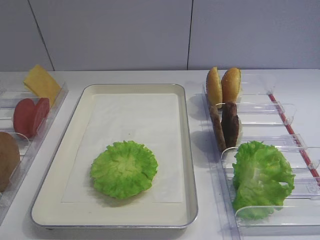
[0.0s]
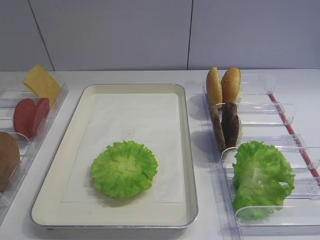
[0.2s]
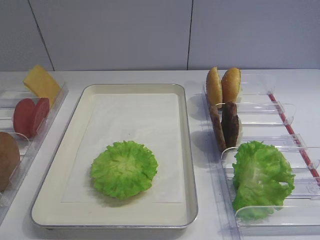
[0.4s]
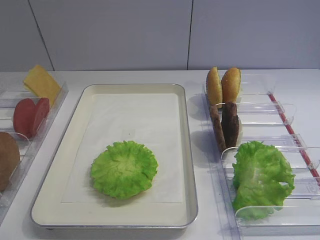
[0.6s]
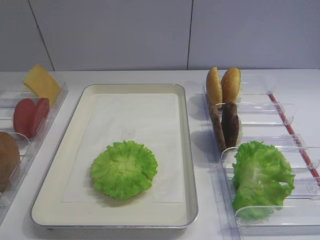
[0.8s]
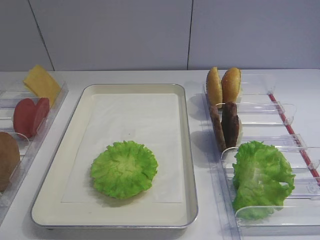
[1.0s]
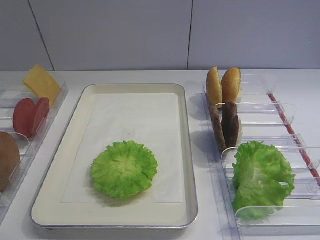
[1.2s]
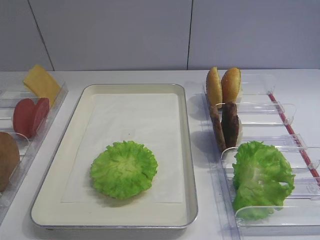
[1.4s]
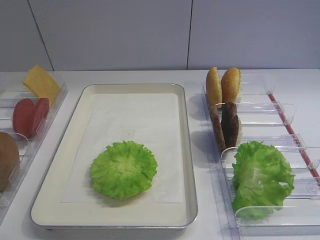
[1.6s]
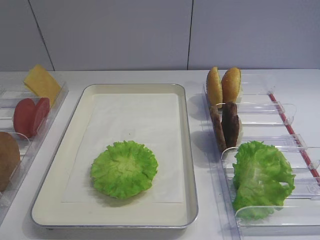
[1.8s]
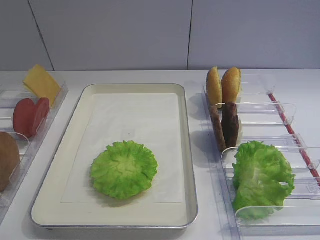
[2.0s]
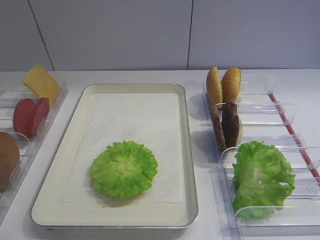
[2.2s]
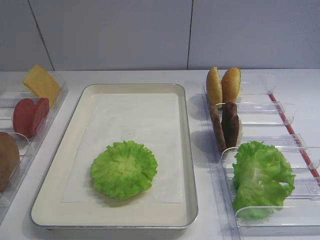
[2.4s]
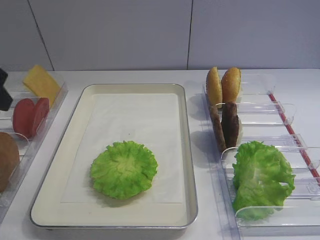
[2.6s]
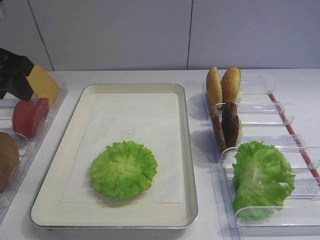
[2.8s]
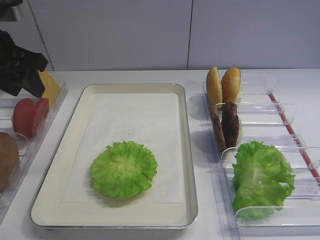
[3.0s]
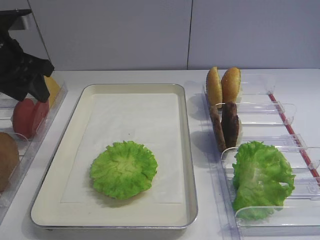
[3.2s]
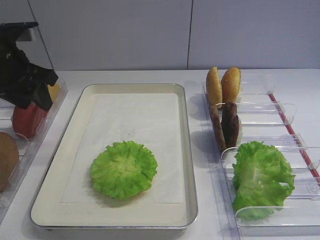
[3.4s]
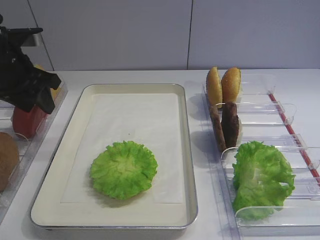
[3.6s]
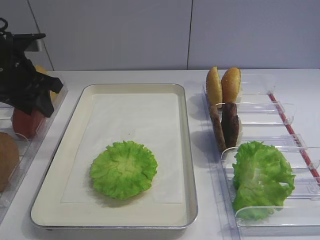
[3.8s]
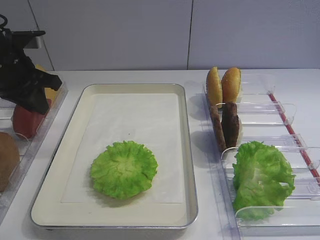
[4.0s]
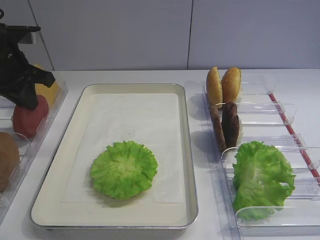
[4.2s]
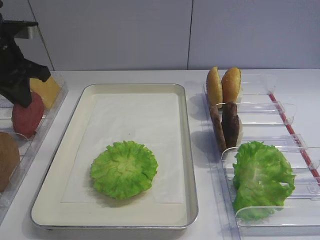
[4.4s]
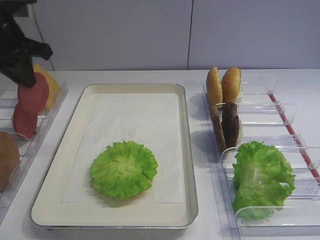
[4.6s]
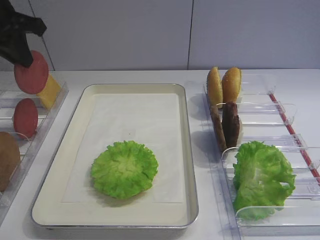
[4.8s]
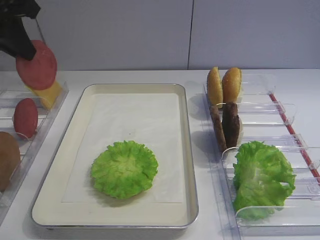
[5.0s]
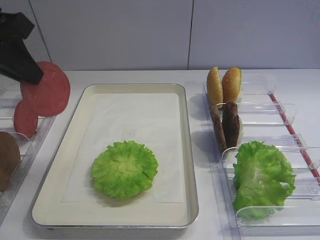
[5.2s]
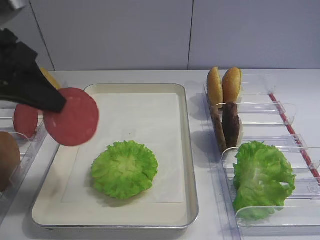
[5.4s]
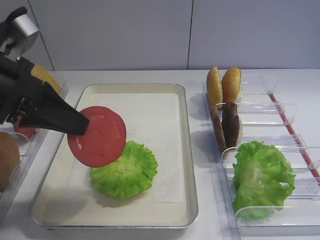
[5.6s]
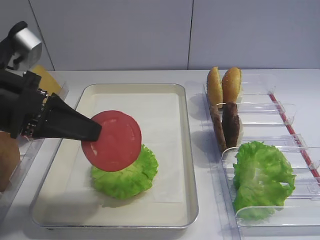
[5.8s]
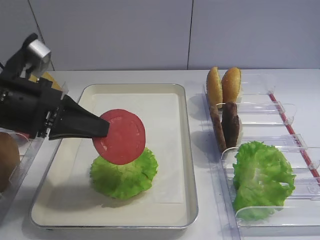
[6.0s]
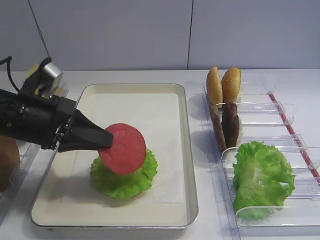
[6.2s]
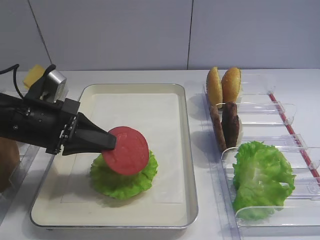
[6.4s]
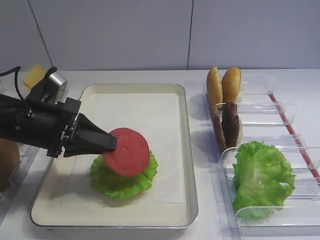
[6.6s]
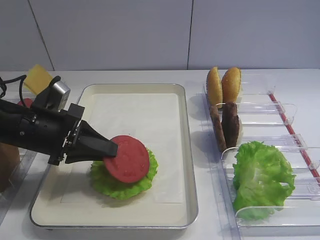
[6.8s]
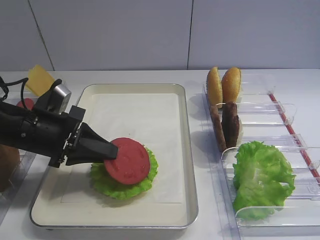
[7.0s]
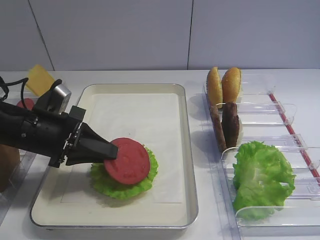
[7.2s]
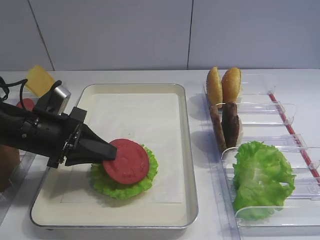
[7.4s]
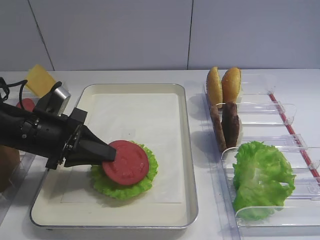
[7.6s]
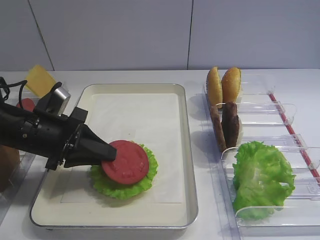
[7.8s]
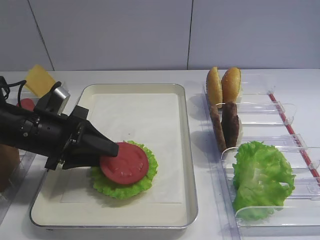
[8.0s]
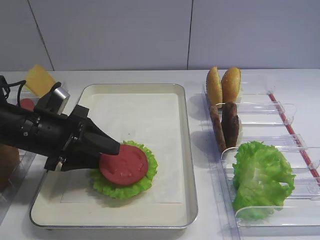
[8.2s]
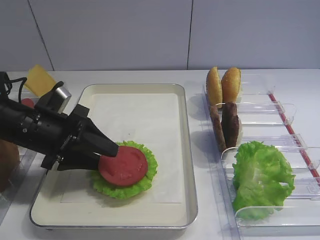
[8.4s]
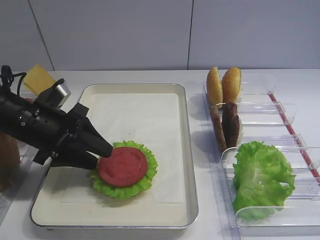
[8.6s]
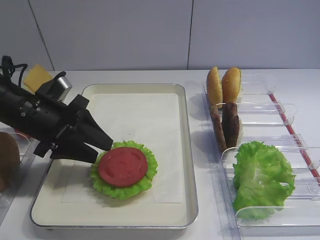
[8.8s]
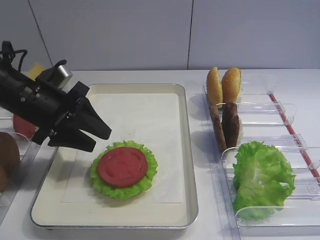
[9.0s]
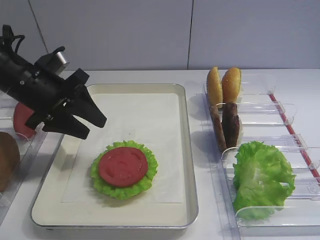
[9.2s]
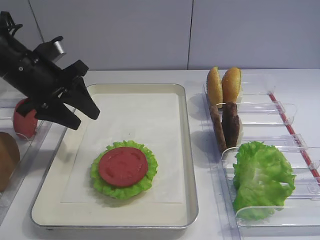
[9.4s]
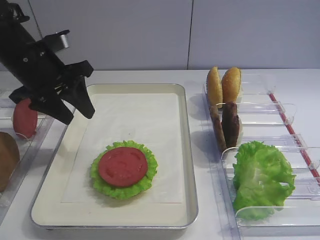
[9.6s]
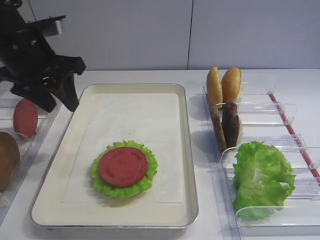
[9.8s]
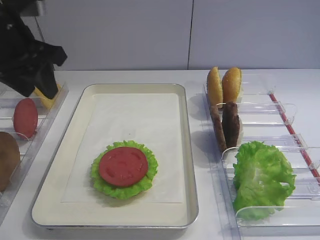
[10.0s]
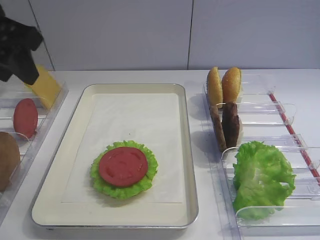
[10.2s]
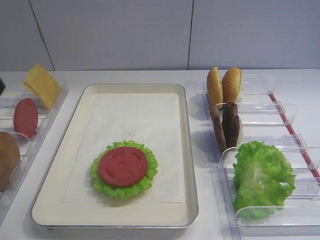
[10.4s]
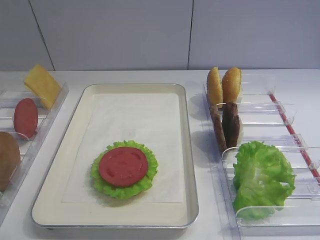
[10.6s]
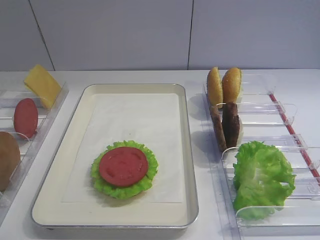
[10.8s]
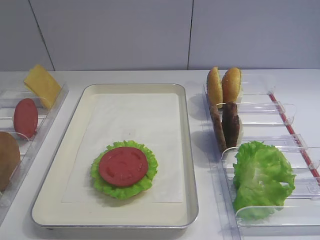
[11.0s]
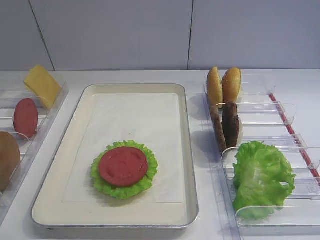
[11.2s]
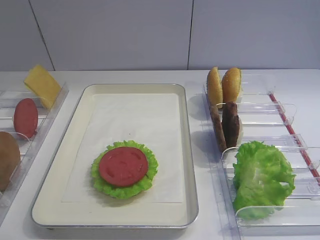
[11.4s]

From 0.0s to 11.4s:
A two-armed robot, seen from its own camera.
Step, from 0.0s to 4.8s: Pick up the tomato slice with the left gripper.
Step, from 5.0s to 8.8s: Place the tomato slice on the lettuce leaf with the left gripper.
From 1.4s to 2.8s: The left gripper travels forward by approximately 30 cm.
From 2.8s to 4.2s: The left gripper moves forward, about 5 cm, and closes its fingers.
From 4.2s to 5.6s: The left gripper shifts some 15 cm backward and to the right.
From 5.6s to 7.2s: The left gripper is displaced downward by some 10 cm.
From 7.2s to 8.6s: The left gripper opens up.
From 8.6s to 10.0s: The left gripper travels upward by about 15 cm.
From 10.0s to 11.4s: The left gripper is displaced backward by about 30 cm.

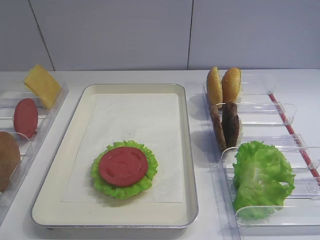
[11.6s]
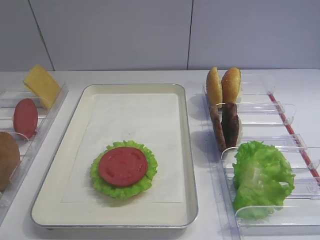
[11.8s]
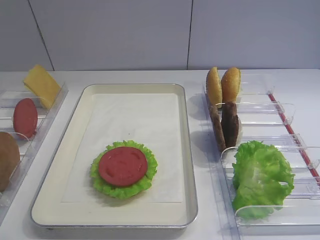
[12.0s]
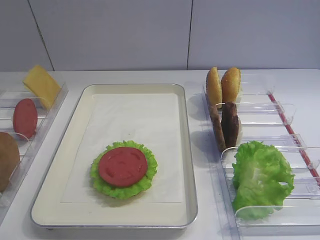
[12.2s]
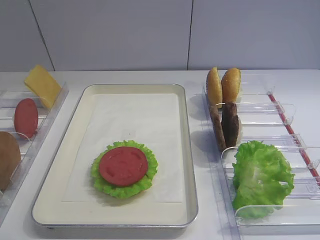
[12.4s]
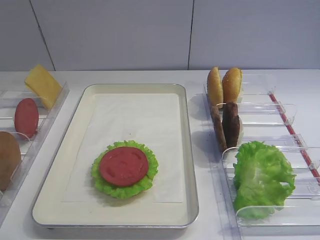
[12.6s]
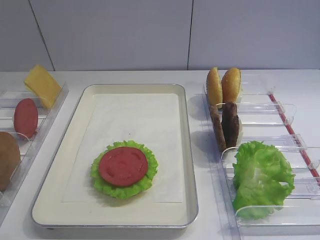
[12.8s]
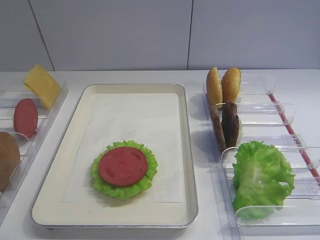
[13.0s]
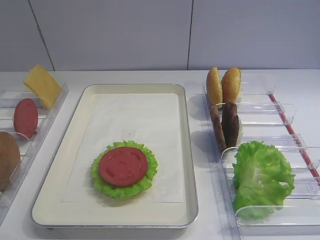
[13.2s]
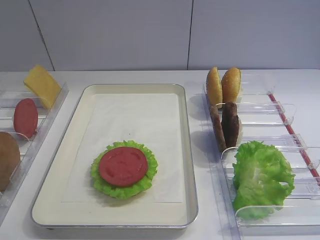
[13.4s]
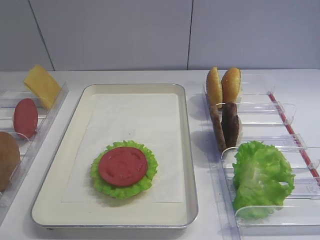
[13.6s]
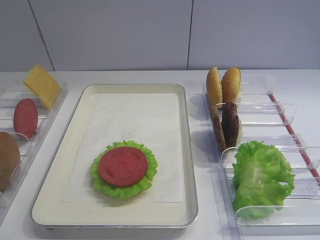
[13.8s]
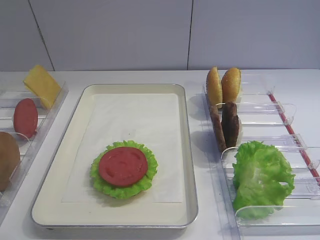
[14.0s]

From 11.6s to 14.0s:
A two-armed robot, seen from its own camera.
From 12.8s to 14.0s: The two grippers keep their place.

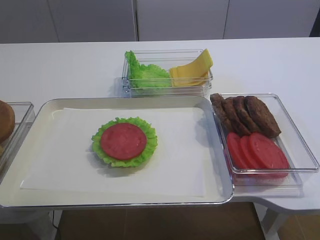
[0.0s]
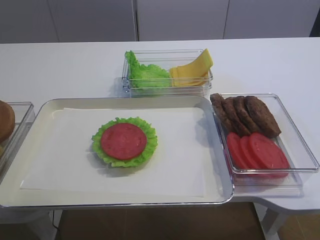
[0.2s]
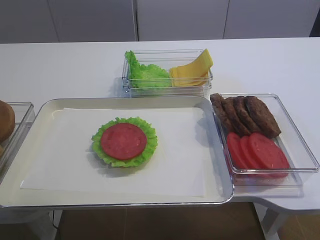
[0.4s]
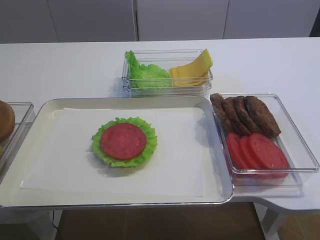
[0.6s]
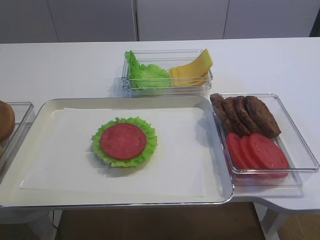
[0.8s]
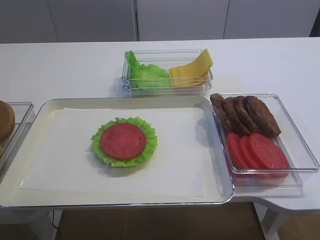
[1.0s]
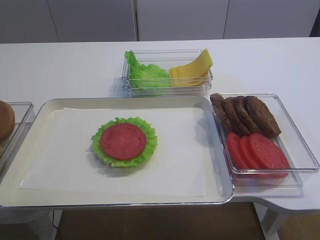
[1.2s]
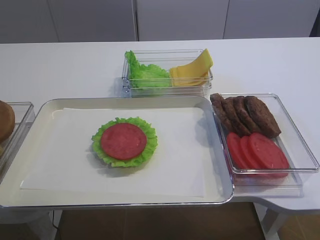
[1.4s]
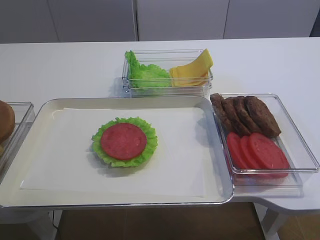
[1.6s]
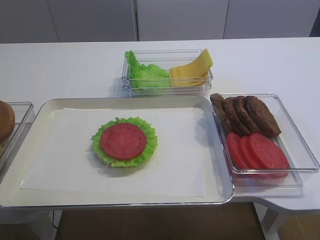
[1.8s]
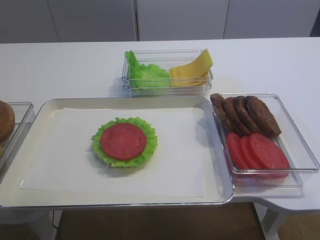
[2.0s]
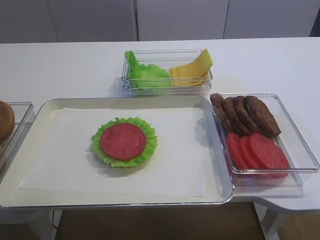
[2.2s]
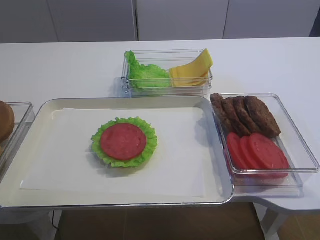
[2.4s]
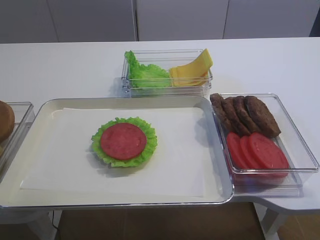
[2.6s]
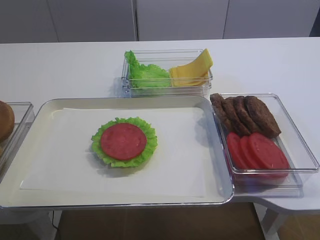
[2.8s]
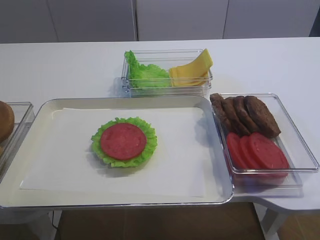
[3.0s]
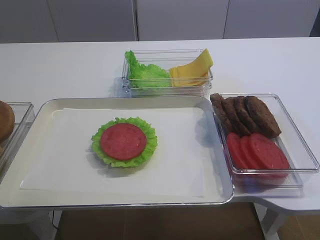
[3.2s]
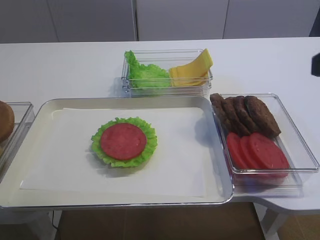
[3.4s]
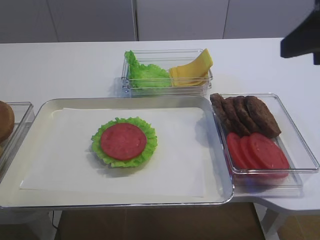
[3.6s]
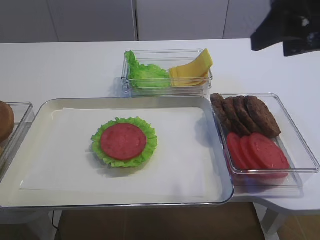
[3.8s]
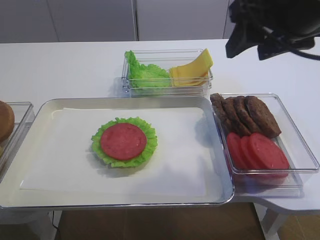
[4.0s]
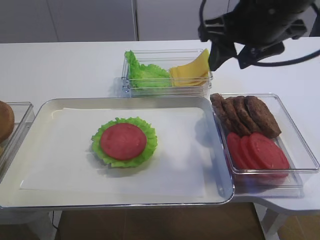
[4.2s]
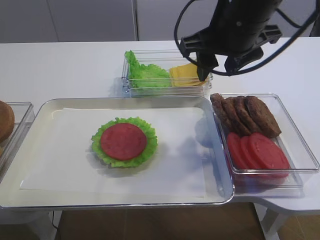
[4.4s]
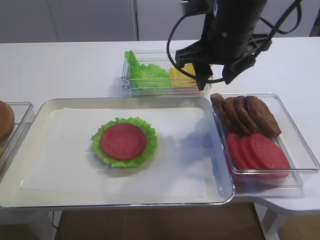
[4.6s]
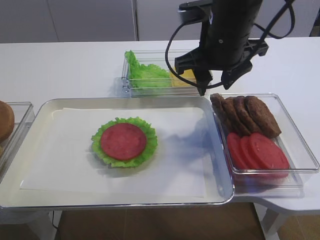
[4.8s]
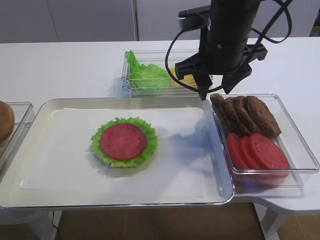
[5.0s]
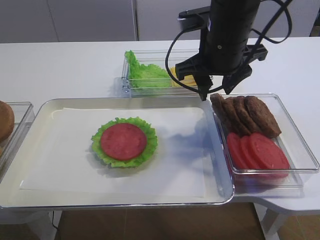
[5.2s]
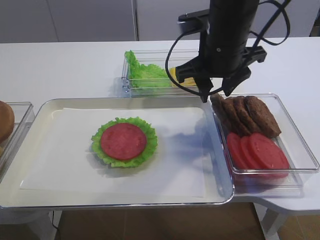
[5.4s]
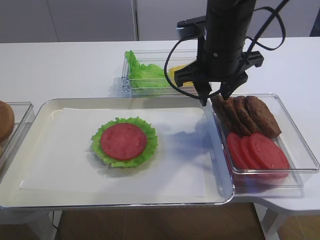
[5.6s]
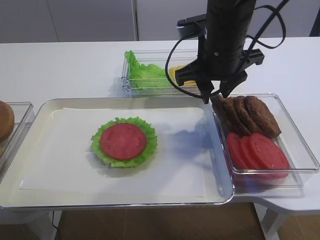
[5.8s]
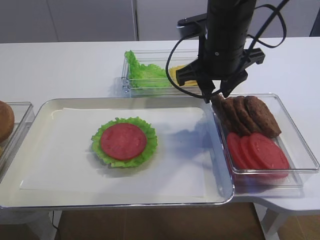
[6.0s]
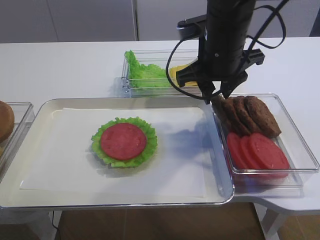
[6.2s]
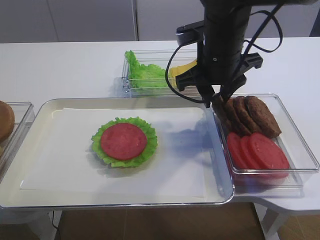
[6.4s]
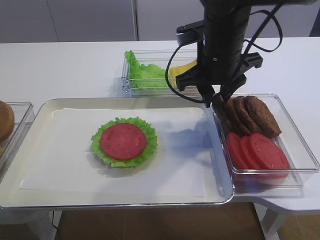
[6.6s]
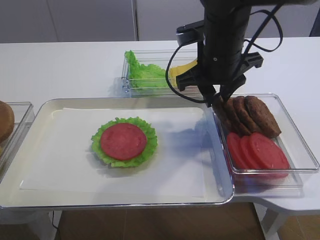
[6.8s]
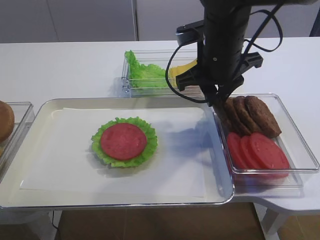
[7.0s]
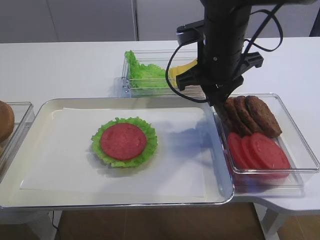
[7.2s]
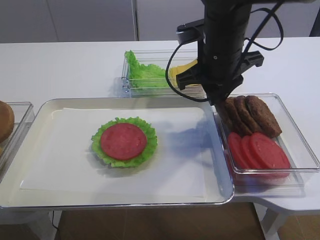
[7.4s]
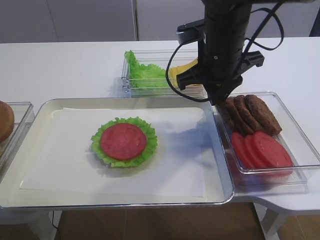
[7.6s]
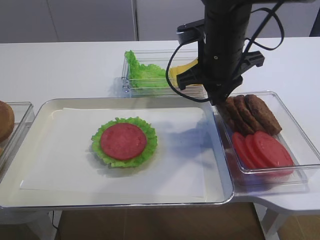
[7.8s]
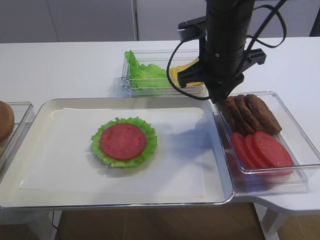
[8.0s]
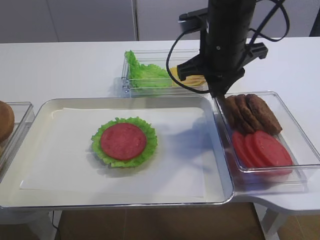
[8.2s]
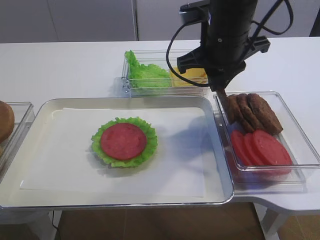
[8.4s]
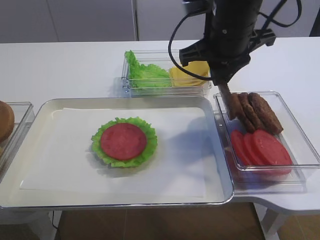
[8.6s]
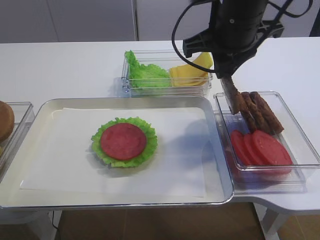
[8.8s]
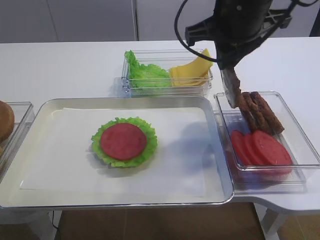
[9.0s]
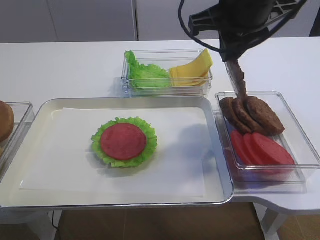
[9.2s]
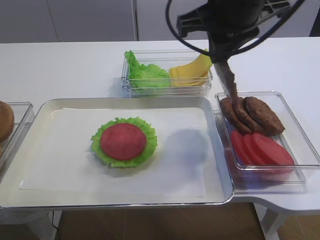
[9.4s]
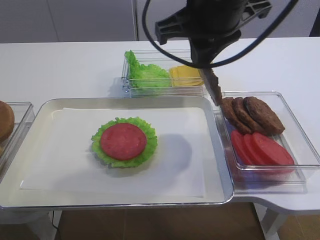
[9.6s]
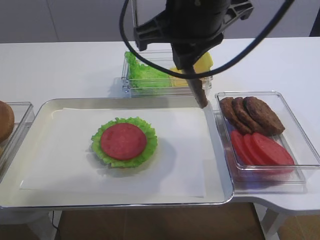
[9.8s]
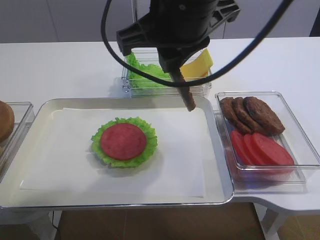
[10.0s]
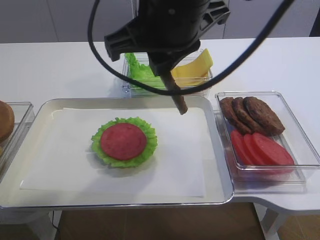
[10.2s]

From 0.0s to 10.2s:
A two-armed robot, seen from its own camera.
Step, from 0.0s to 8.6s: Pick up the cutlet with the right gripper.
From 1.4s to 3.0s: The right gripper heads forward and upward, covering approximately 10 cm.
From 3.0s to 4.4s: The right gripper moves forward and to the left, some 30 cm.
From 4.4s to 5.8s: The right gripper is displaced downward by approximately 5 cm.
From 5.8s to 7.2s: Both grippers stay about where they are.
From 7.2s to 8.8s: The right gripper travels upward by approximately 5 cm.
From 8.8s to 10.2s: The right gripper goes approximately 10 cm backward and to the left.
